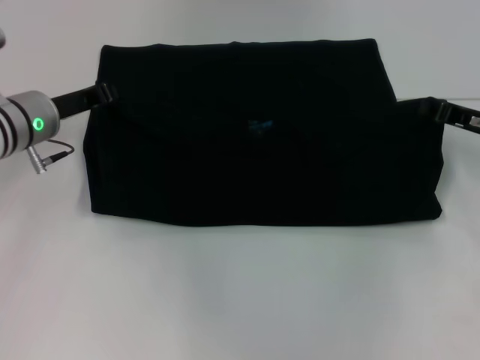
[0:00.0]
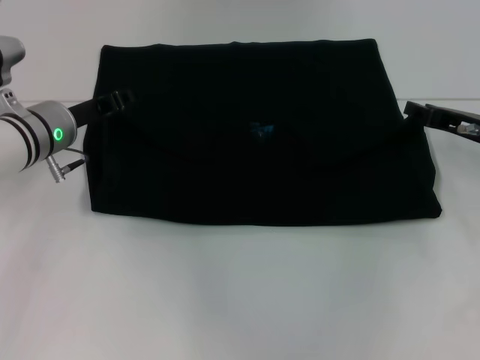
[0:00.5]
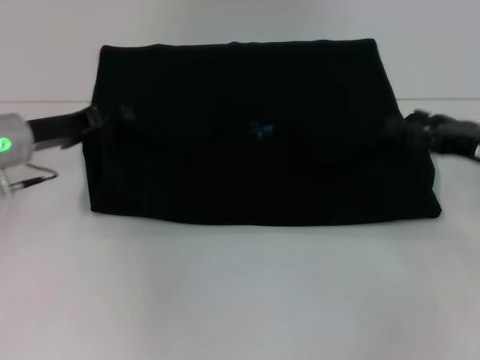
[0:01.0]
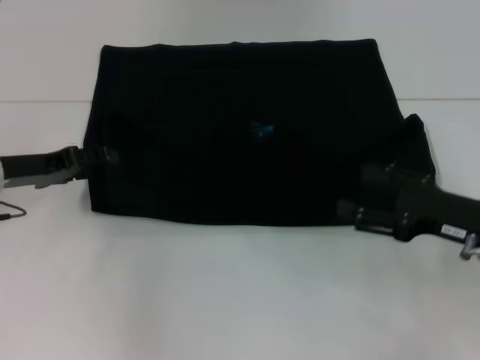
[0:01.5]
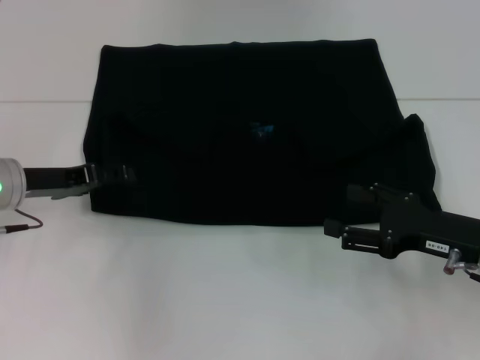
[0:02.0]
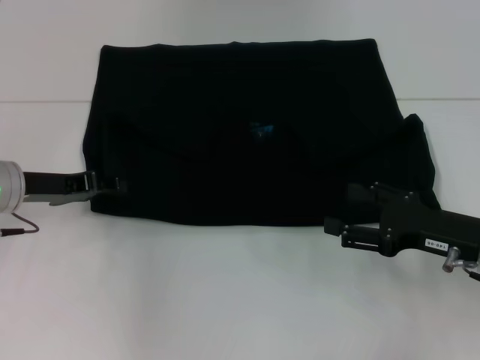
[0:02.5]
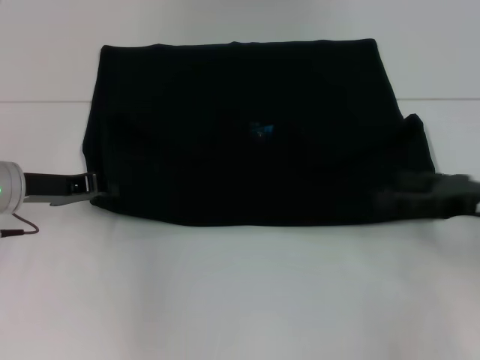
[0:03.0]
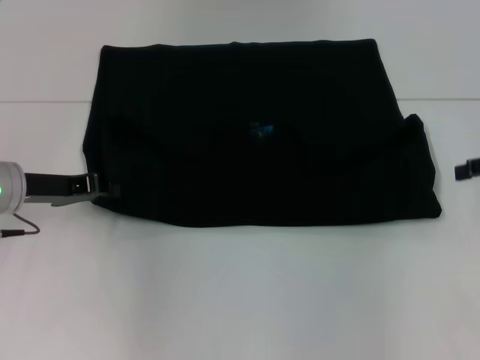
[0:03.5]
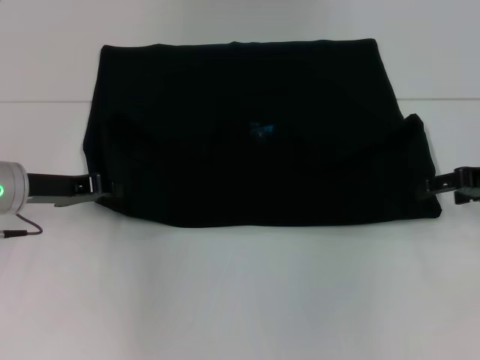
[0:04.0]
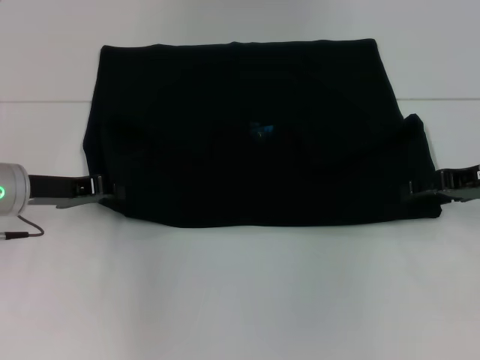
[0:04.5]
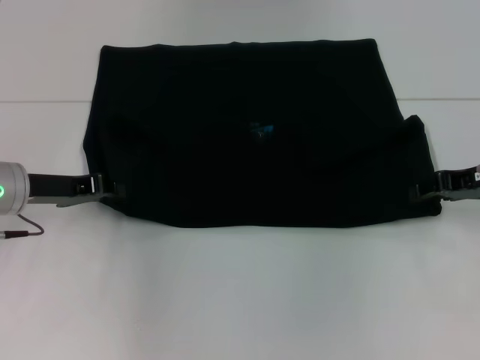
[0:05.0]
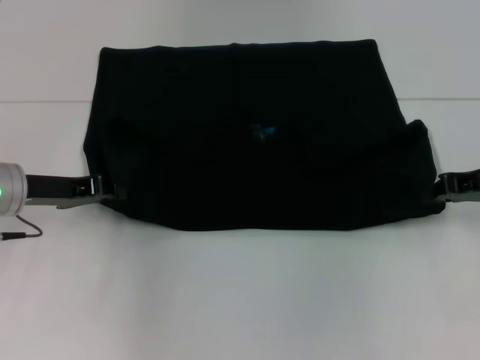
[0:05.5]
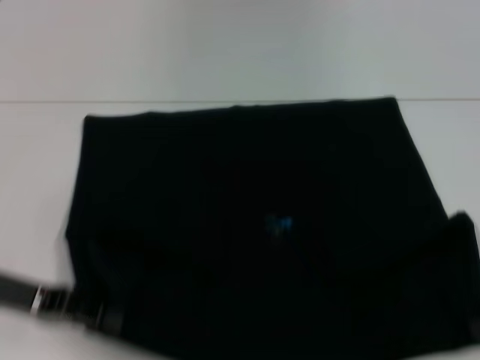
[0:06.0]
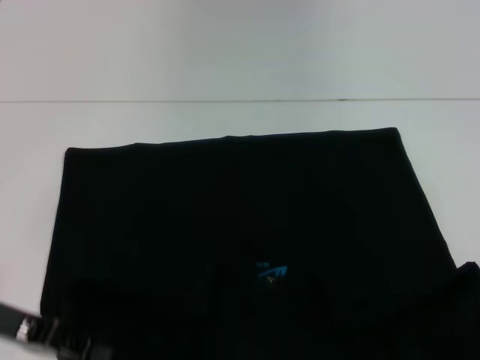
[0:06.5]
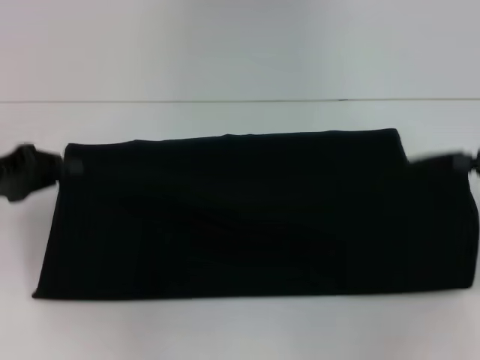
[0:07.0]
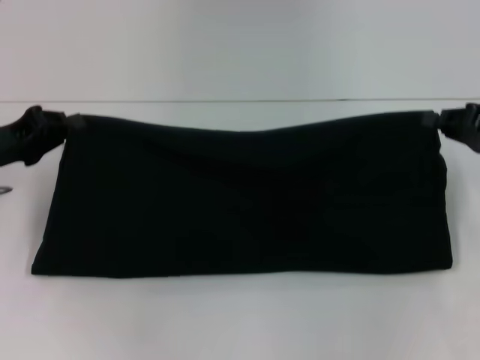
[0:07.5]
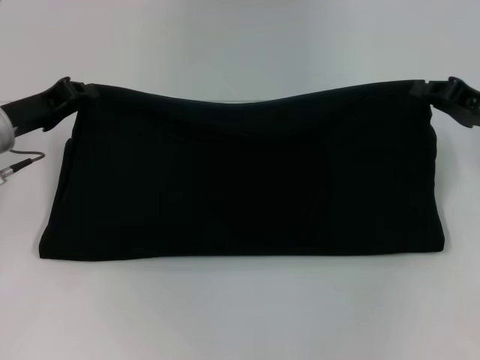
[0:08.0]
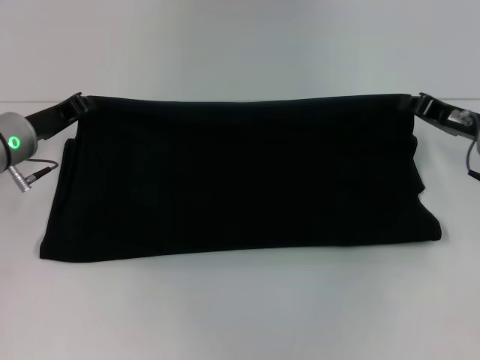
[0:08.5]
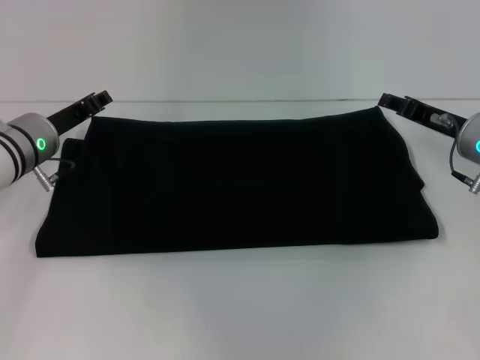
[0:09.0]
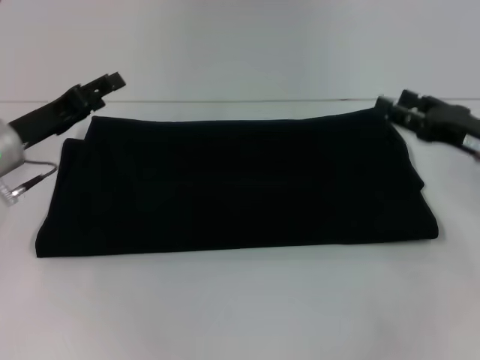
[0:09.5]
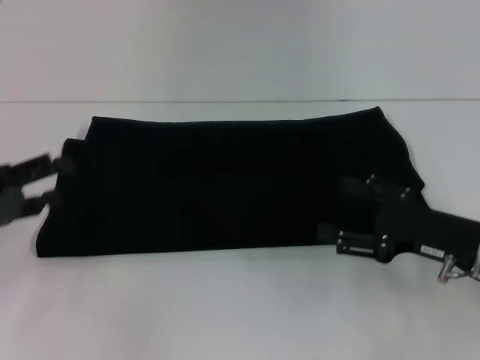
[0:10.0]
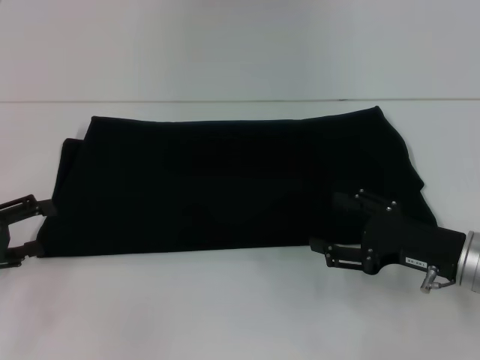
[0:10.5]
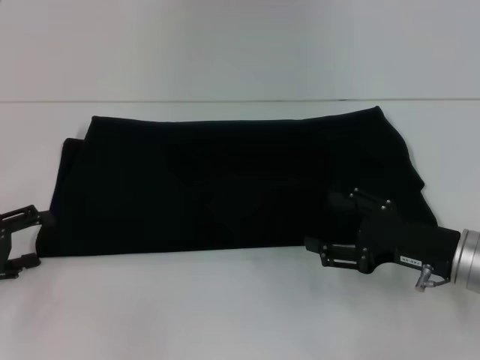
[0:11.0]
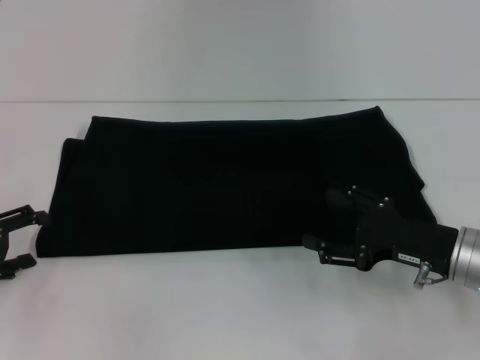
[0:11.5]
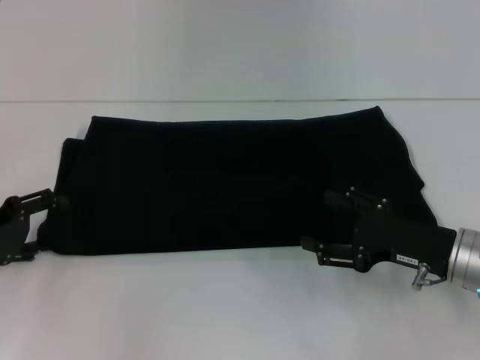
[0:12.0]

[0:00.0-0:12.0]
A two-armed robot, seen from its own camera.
Step, 0:01.0 to 0:06.0: Pull the clothes with your left hand.
Step, 0:01.0 to 0:06.0: Pull the clothes with your right hand.
Step, 0:06.5 to 0:09.0: Fold the clothes with your right hand.
0:00.0 to 0:02.0: The right gripper goes roughly 10 cm backward, and opens up. The left gripper goes about 5 cm backward, and opens its fingers.
0:02.0 to 0:04.0: The left gripper closes up, while the right gripper travels forward, upward and to the right by about 15 cm.
0:04.0 to 0:06.0: Both grippers travel together backward, about 10 cm. The right gripper closes.
0:06.0 to 0:08.0: Both grippers move forward, about 10 cm.
0:08.0 to 0:10.0: The left gripper moves backward and to the left, some 10 cm, and opens. The right gripper heads backward, downward and to the left, covering some 10 cm, and opens up.

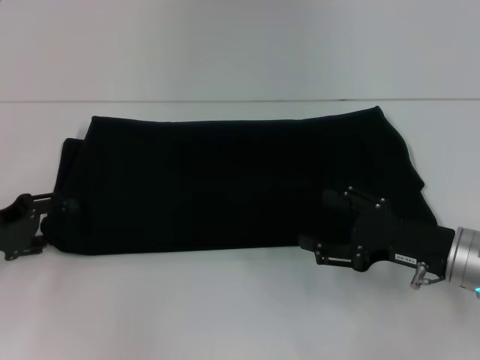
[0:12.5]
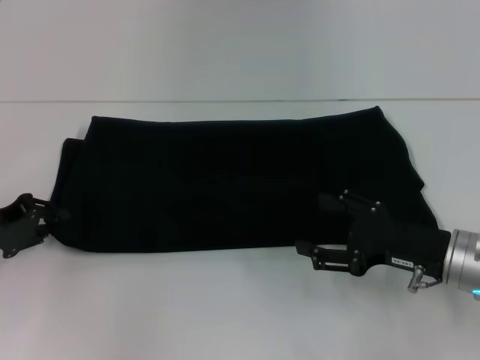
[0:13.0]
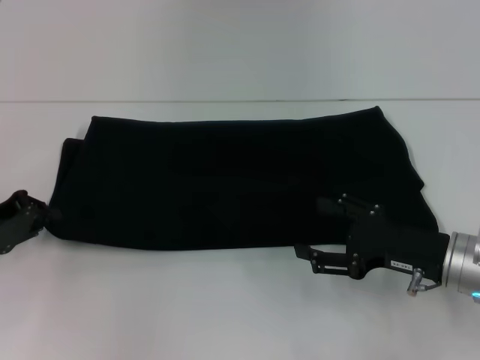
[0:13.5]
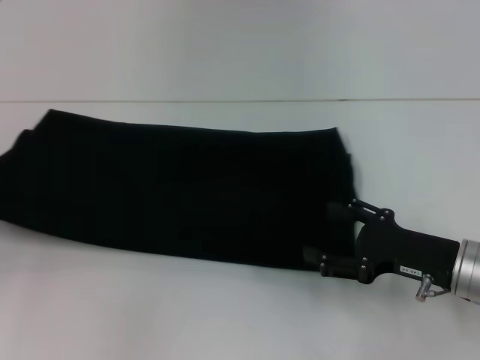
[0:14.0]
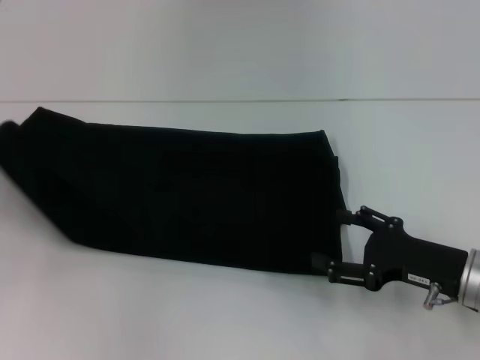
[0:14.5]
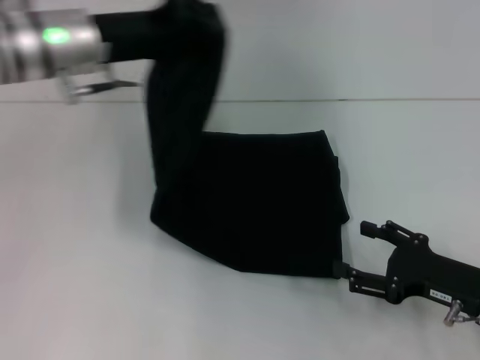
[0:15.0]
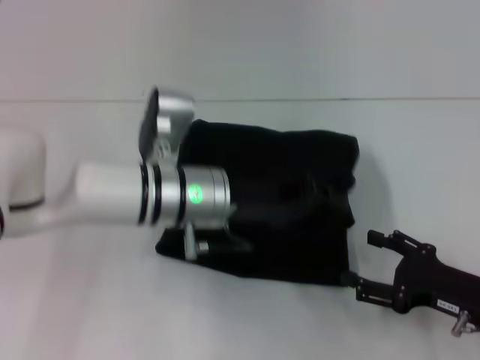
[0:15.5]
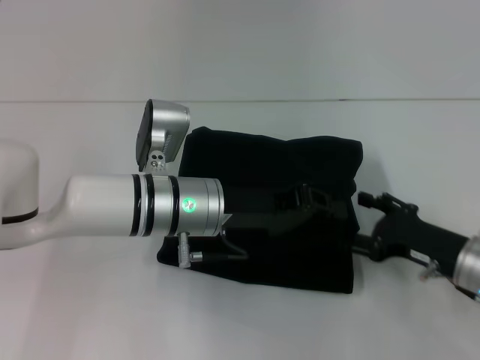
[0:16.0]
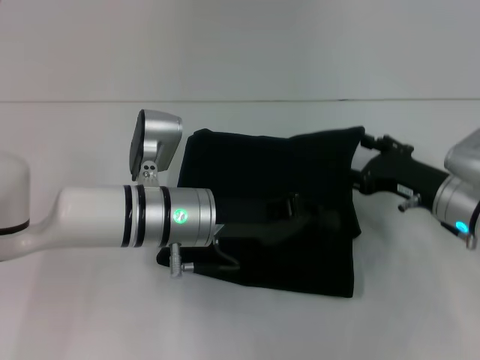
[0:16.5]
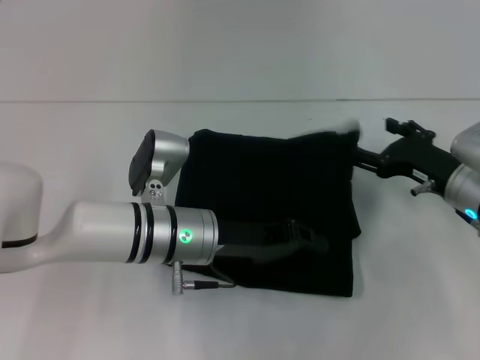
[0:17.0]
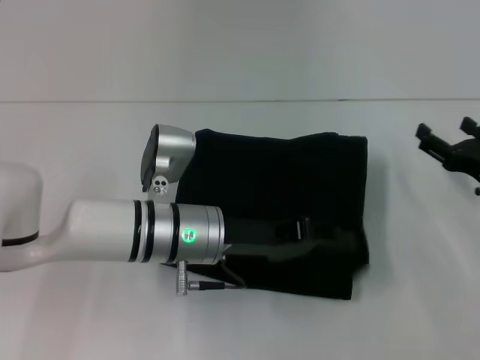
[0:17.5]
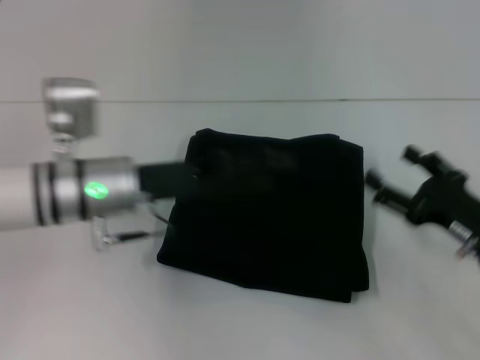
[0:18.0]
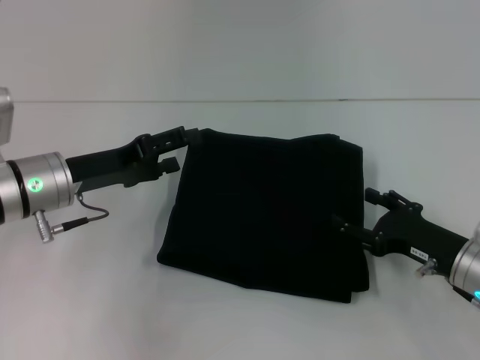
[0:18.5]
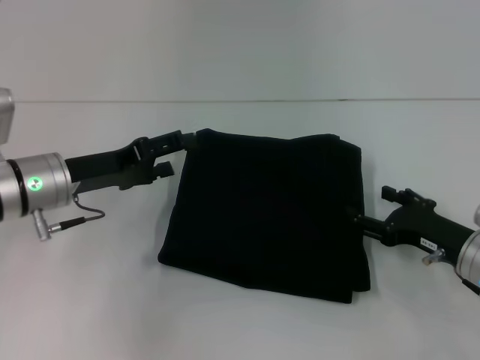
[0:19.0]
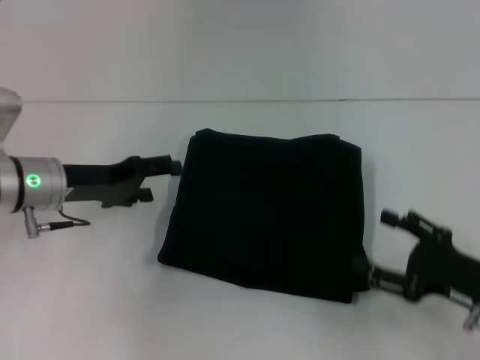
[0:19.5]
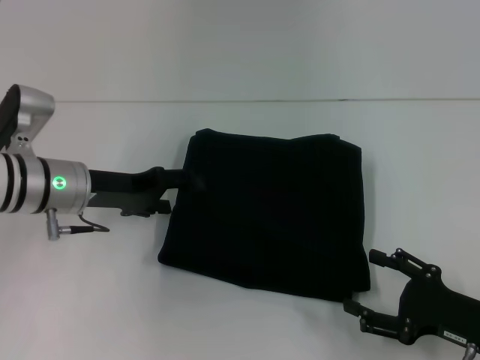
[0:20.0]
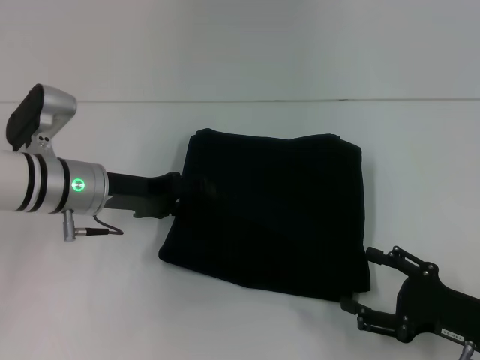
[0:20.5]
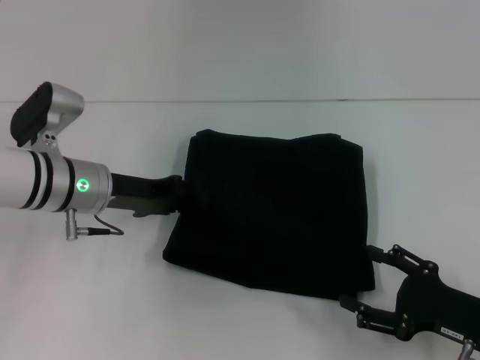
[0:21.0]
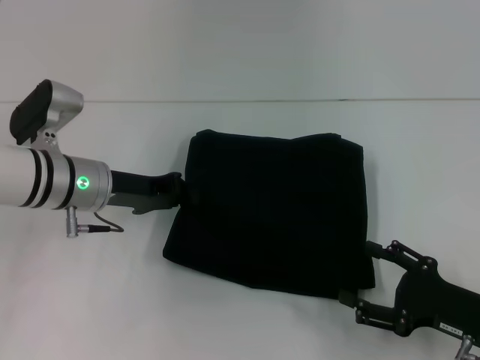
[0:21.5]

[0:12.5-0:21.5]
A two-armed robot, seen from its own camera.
Step, 0:12.5 to 0:17.5: Fold the clothes with your left hand.
0:12.5 to 0:14.5: The left gripper heads upward and to the left, covering approximately 10 cm, and closes its fingers.
0:14.5 to 0:17.0: The right gripper shifts roughly 10 cm forward, while the left gripper travels to the right by about 30 cm.
0:17.0 to 0:19.5: The right gripper shifts some 10 cm backward. Meanwhile the left gripper is displaced to the left by about 15 cm, and opens.
0:19.5 to 0:21.5: The left gripper closes its fingers.

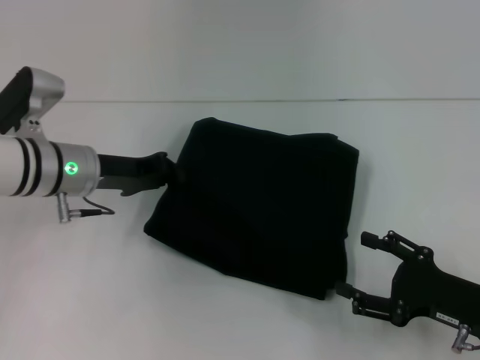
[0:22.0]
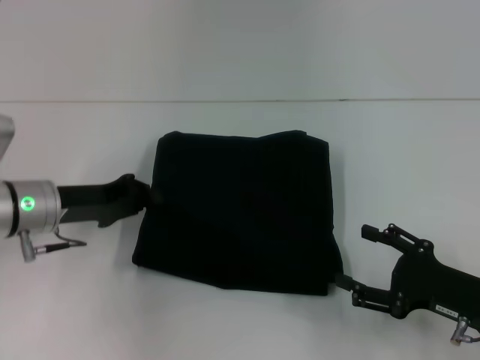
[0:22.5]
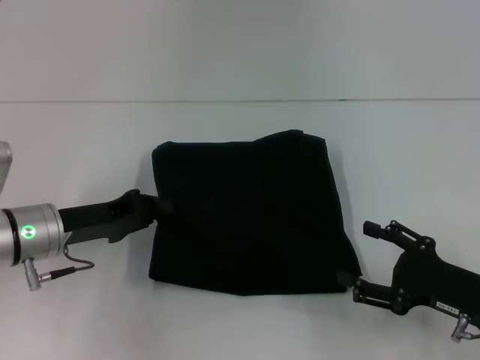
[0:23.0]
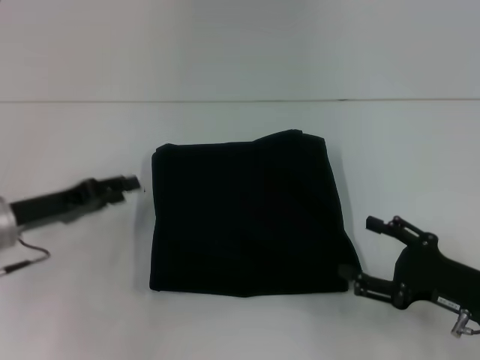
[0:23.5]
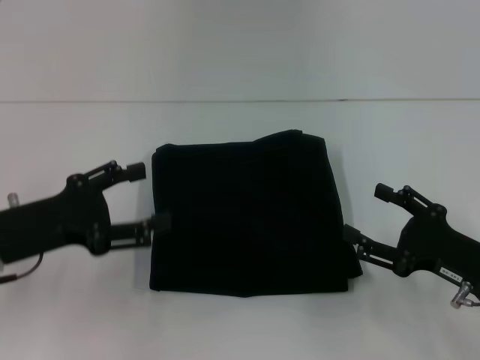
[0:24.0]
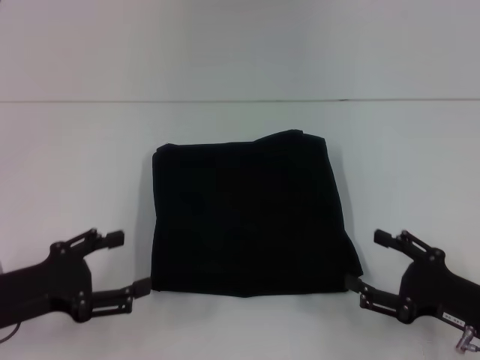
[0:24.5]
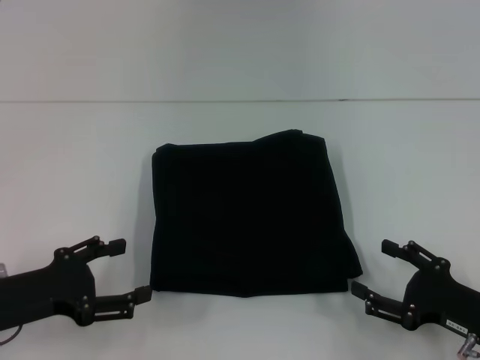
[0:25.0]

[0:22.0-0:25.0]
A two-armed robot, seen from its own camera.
0:22.0 to 0:23.5: The left gripper moves to the left and backward, roughly 10 cm.
0:23.5 to 0:25.0: The left gripper travels backward by approximately 10 cm, and opens up.

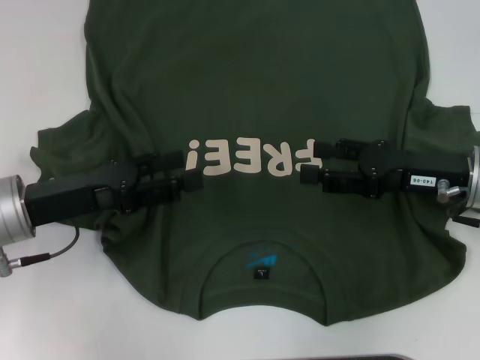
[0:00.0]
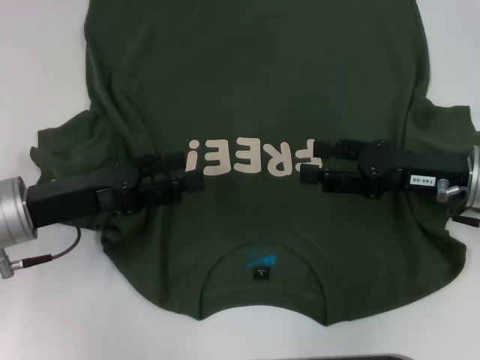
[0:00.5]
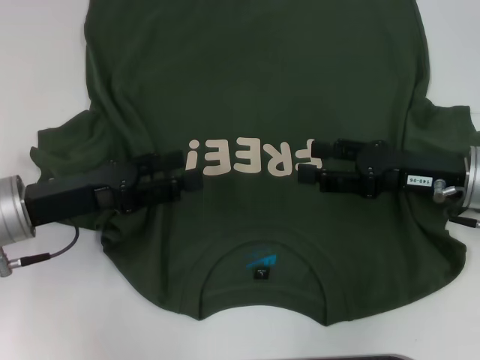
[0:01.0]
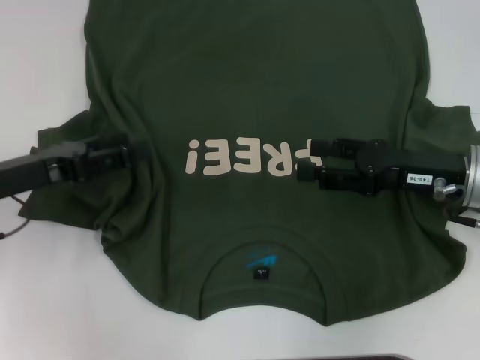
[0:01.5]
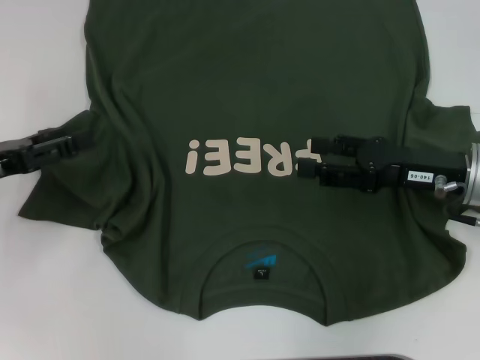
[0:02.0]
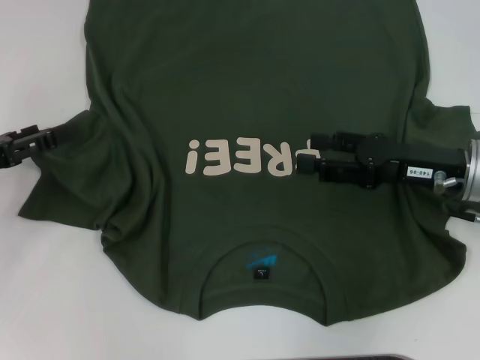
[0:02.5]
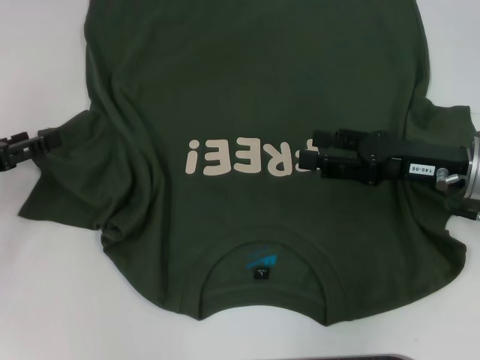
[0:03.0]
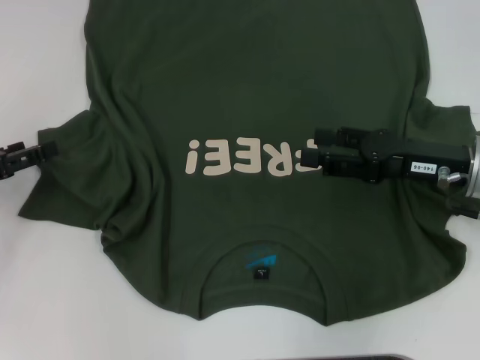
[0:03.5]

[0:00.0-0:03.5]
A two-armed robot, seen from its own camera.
0:00.0 to 0:02.0: The left gripper shifts approximately 10 cm to the left.
0:02.0 to 0:03.5: The grippers move only a little.
